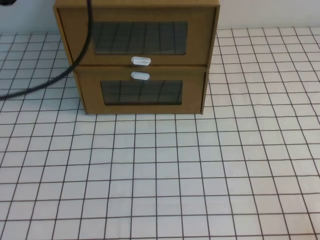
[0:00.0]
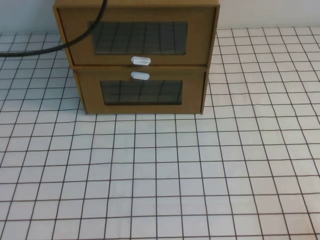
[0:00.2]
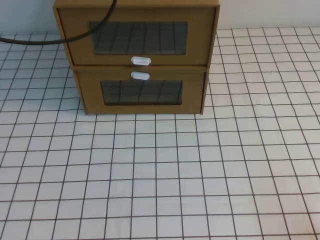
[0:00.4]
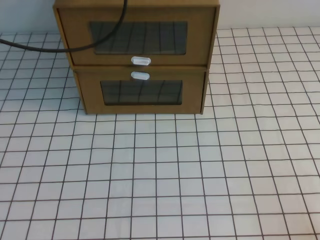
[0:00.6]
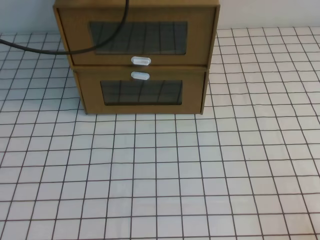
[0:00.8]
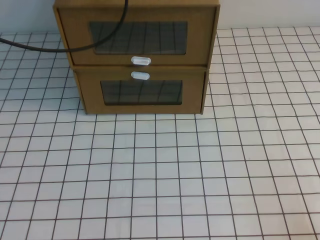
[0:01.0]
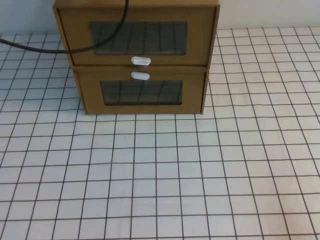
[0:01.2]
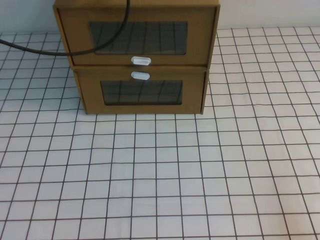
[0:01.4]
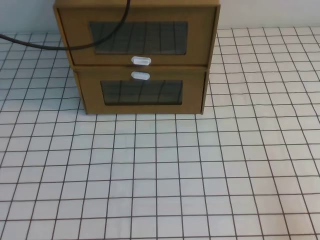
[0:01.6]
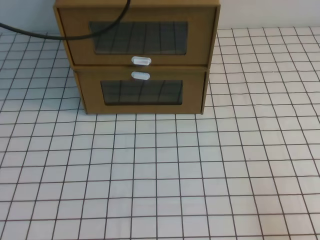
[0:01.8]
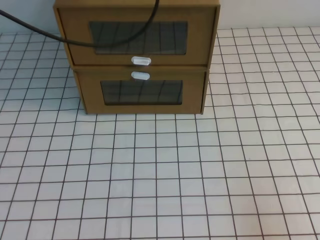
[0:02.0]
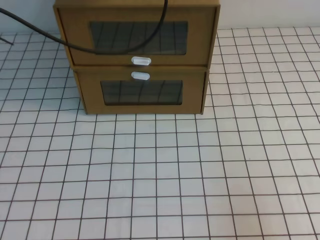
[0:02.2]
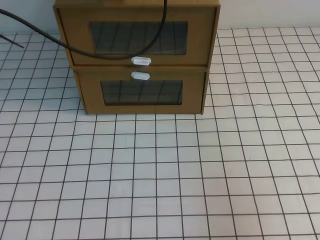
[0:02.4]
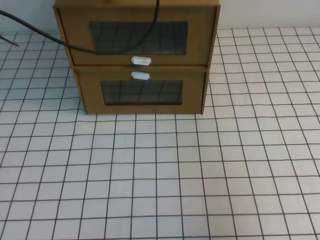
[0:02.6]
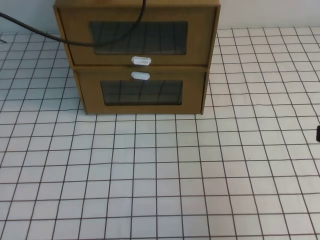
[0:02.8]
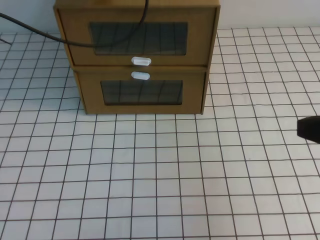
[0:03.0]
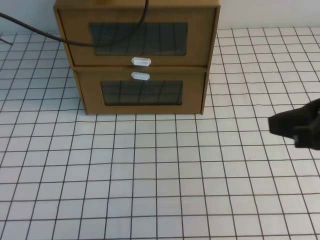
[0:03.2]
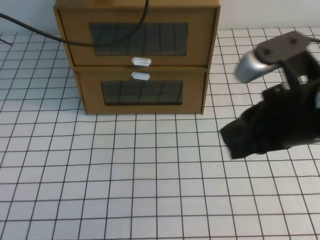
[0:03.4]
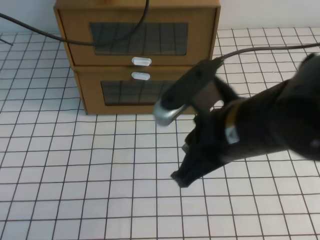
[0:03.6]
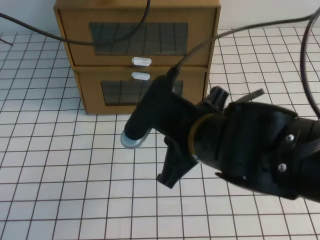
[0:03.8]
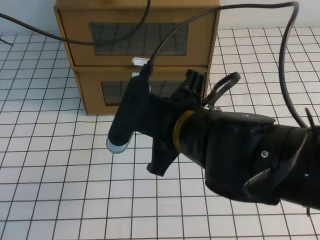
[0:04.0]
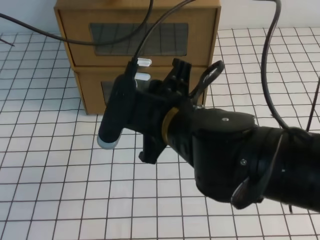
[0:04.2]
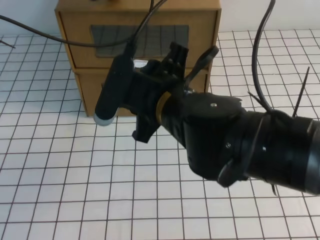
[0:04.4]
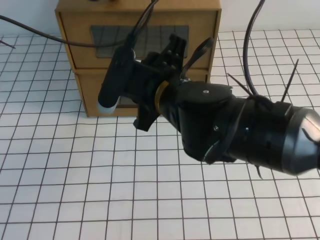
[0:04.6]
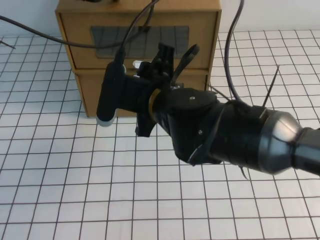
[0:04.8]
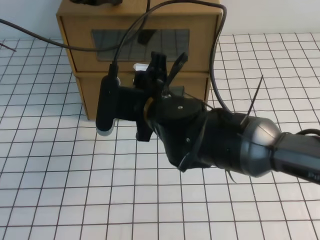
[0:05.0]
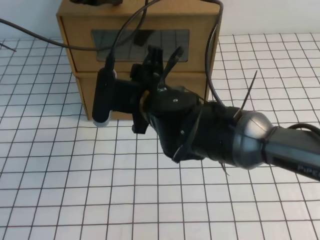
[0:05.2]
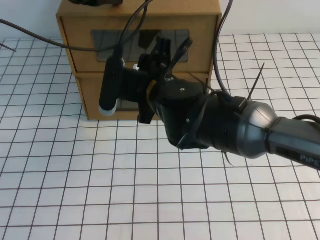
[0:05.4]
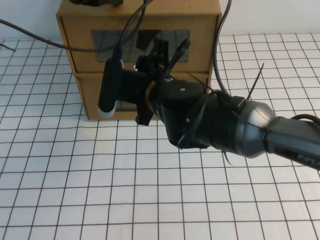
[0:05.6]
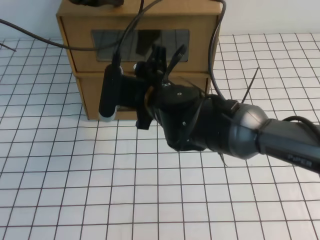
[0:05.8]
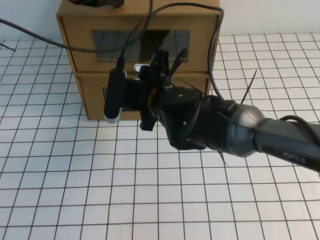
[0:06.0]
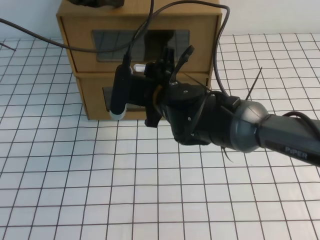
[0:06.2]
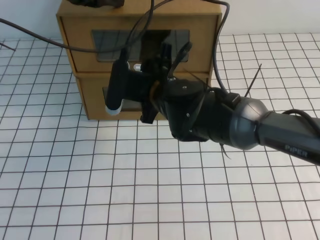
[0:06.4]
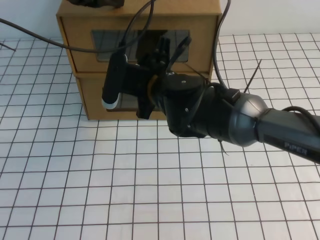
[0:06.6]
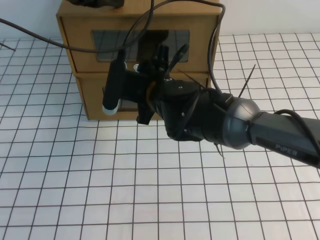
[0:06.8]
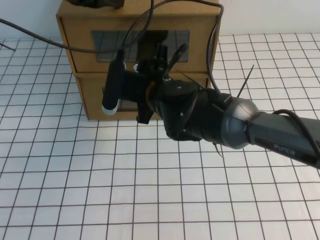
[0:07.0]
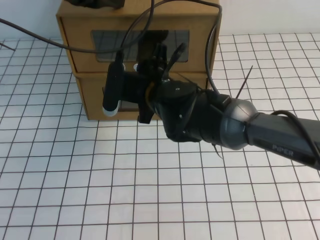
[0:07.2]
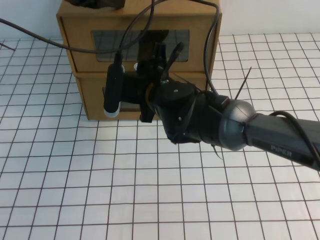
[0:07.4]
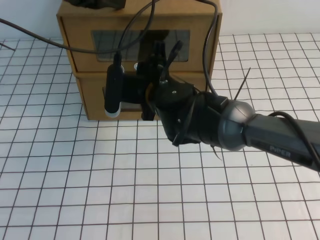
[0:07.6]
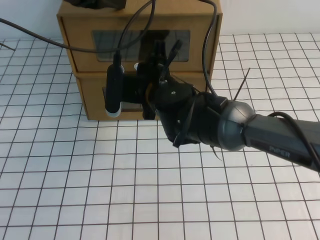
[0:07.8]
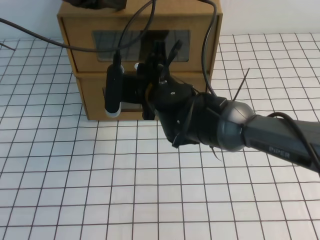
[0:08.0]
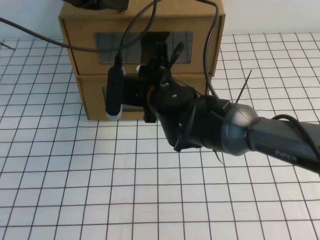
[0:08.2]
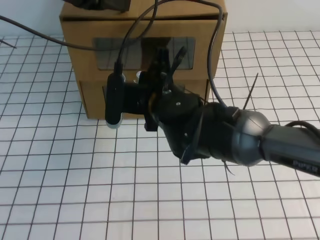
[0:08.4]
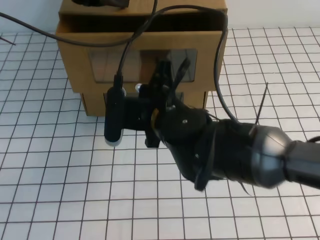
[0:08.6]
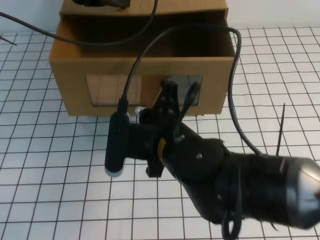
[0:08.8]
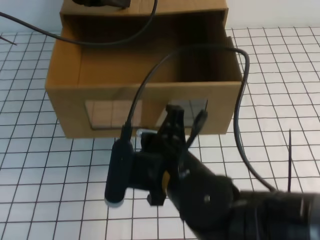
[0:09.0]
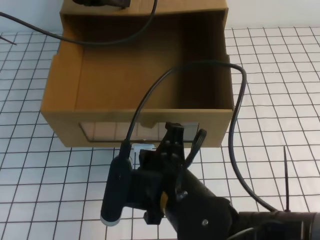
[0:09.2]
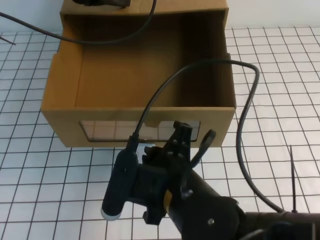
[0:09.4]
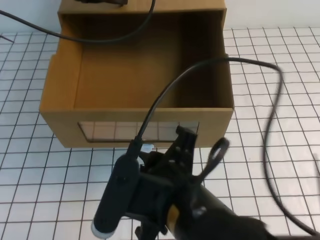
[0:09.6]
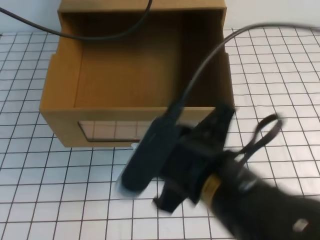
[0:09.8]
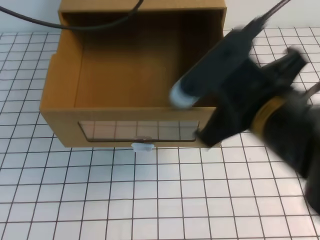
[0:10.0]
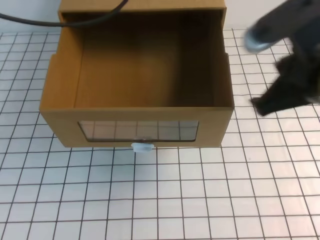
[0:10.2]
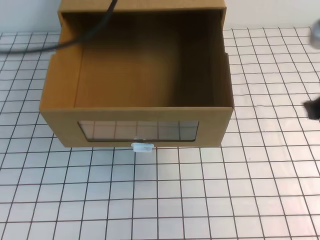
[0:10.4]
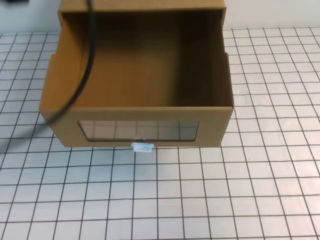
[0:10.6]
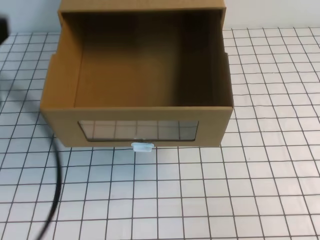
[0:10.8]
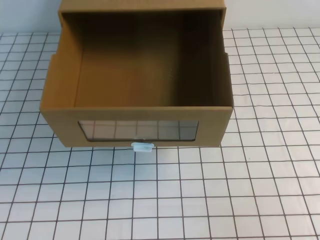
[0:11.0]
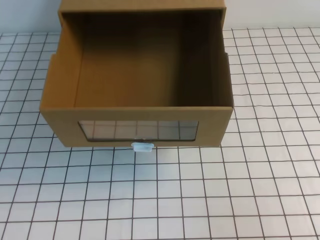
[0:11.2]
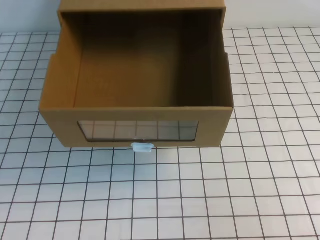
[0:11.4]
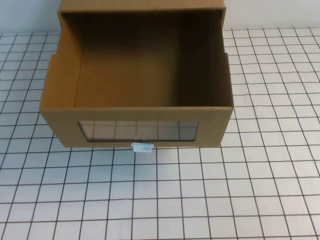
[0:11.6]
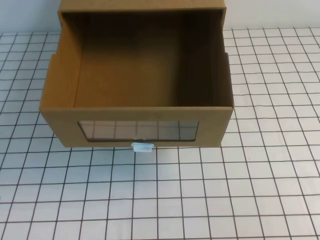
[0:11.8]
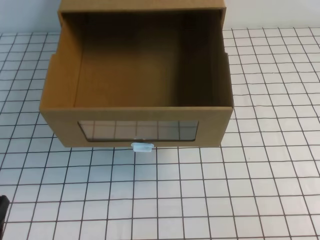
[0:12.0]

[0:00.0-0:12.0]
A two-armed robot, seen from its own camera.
Task of the whole recording: open the shoebox on the white tablecloth.
0:00.0 to 0:01.6: The left gripper is displaced forward by approximately 15 cm.
0:01.6 to 0:03.0: The right gripper is displaced upward, forward and to the left by roughly 20 cm.
0:03.0 to 0:04.4: The right gripper is displaced to the left by about 25 cm, and opens.
0:04.4 to 0:06.0: The right gripper is displaced forward and downward by roughly 10 cm.
0:06.0 to 0:07.6: The right gripper closes up.
0:07.6 to 0:09.0: The right gripper travels backward by about 15 cm, and closes.
0:09.0 to 0:10.4: The right gripper travels to the right and upward by approximately 25 cm. The left gripper moves backward and upward, about 20 cm.
0:10.4 to 0:12.0: The left gripper goes about 40 cm downward and backward, while the right gripper moves backward, downward and to the right, about 20 cm.

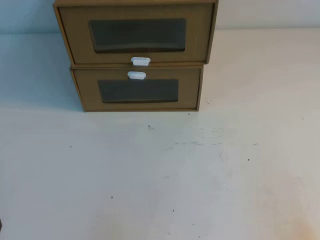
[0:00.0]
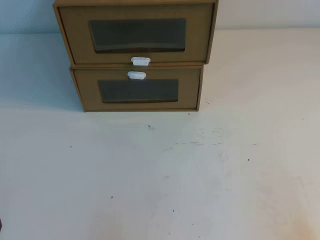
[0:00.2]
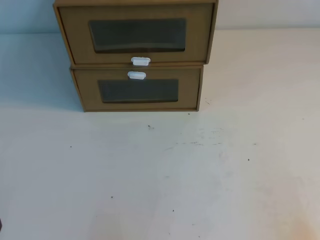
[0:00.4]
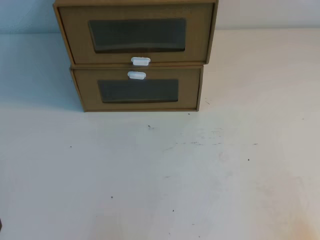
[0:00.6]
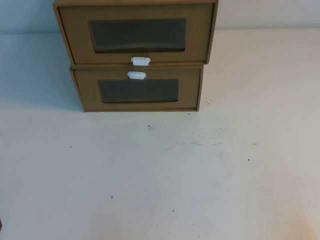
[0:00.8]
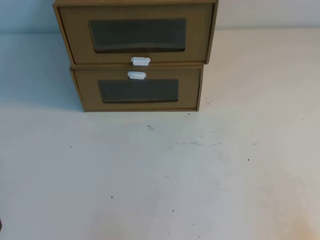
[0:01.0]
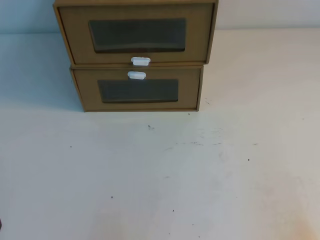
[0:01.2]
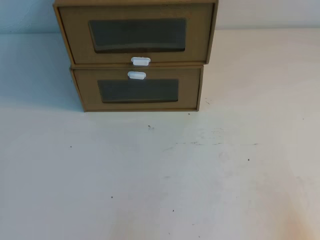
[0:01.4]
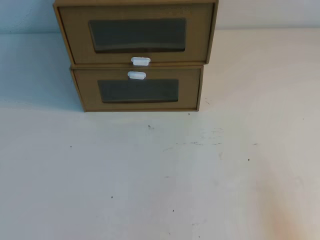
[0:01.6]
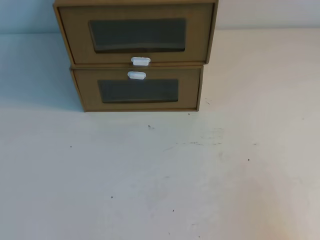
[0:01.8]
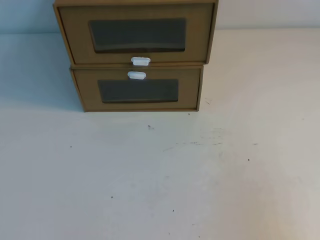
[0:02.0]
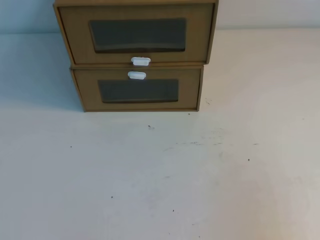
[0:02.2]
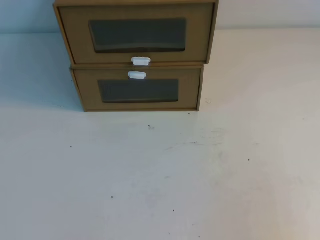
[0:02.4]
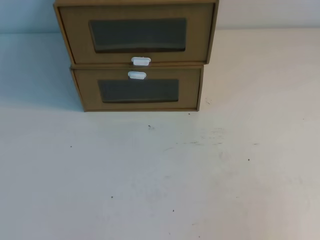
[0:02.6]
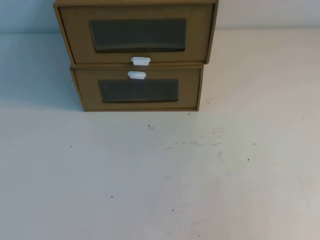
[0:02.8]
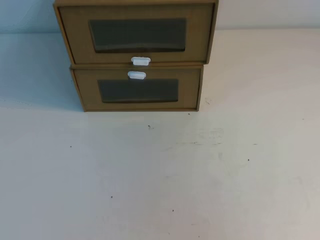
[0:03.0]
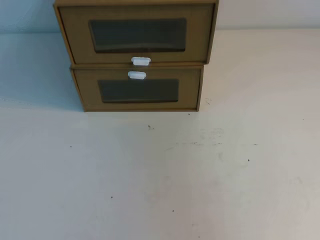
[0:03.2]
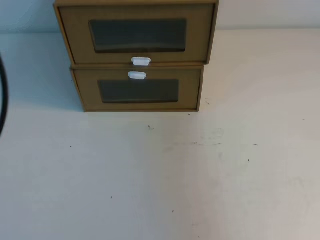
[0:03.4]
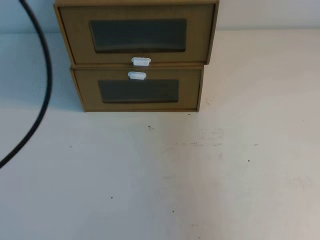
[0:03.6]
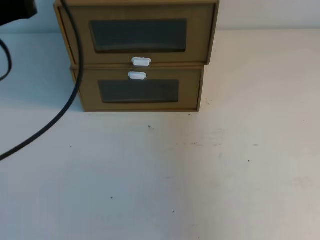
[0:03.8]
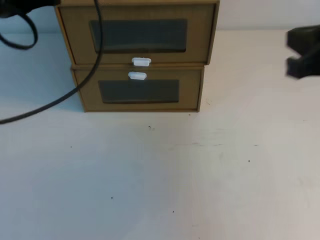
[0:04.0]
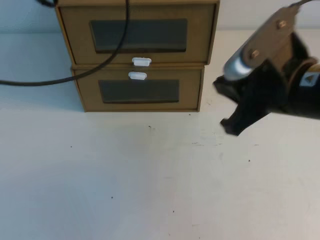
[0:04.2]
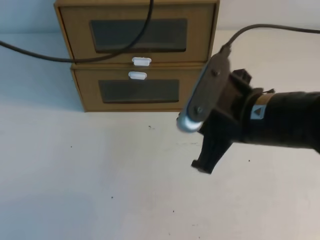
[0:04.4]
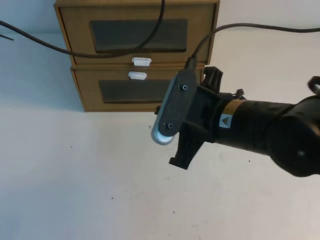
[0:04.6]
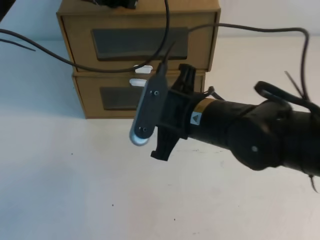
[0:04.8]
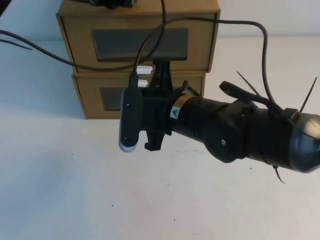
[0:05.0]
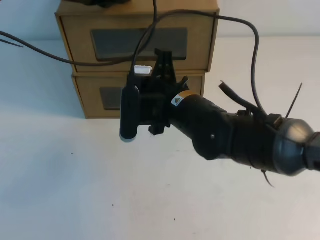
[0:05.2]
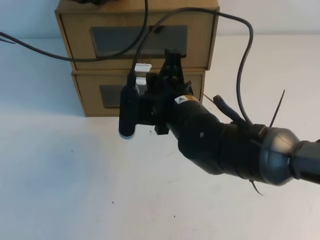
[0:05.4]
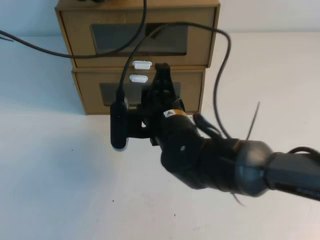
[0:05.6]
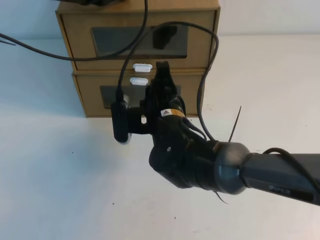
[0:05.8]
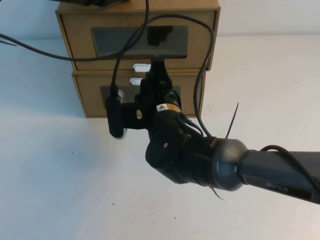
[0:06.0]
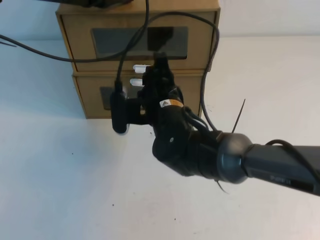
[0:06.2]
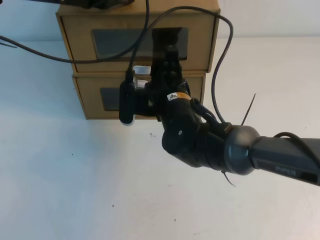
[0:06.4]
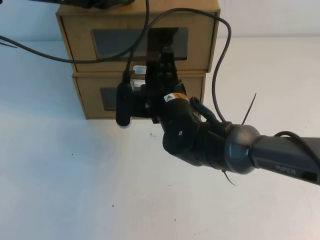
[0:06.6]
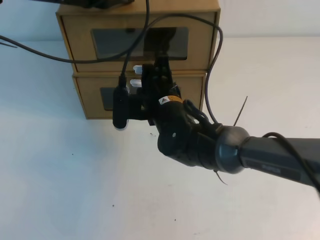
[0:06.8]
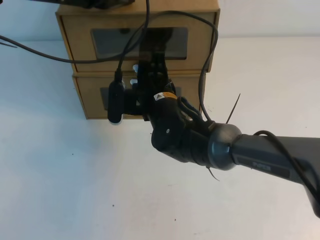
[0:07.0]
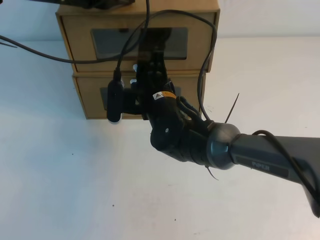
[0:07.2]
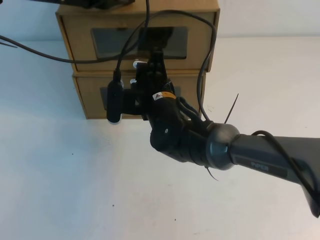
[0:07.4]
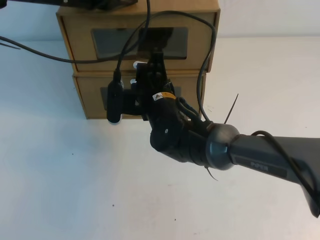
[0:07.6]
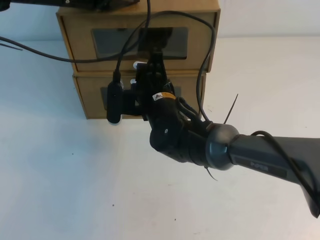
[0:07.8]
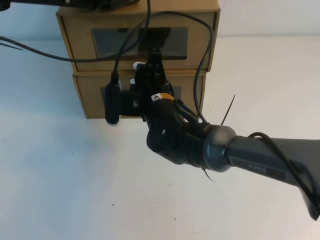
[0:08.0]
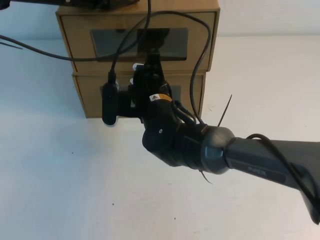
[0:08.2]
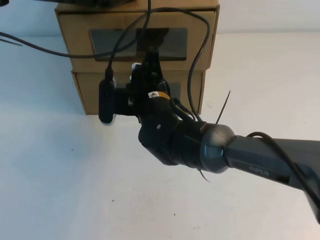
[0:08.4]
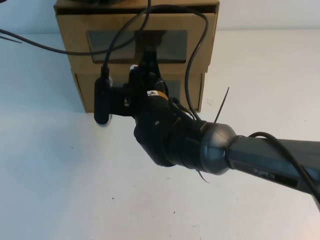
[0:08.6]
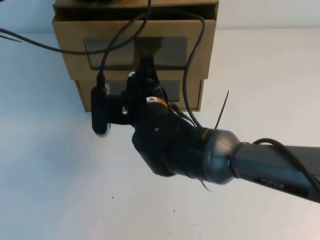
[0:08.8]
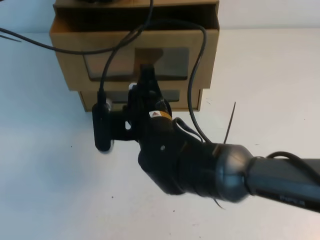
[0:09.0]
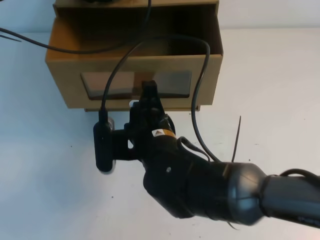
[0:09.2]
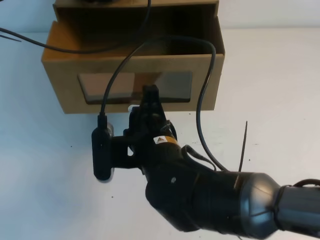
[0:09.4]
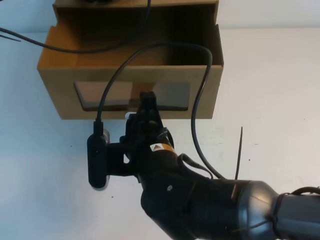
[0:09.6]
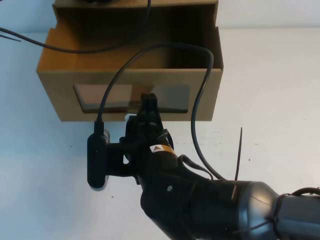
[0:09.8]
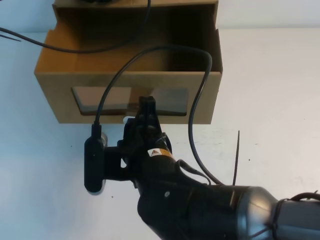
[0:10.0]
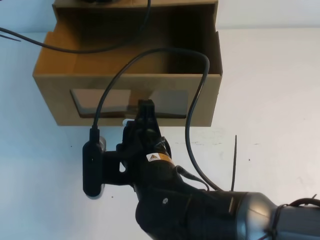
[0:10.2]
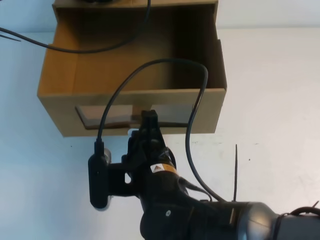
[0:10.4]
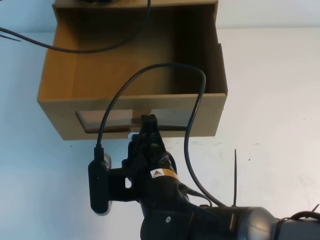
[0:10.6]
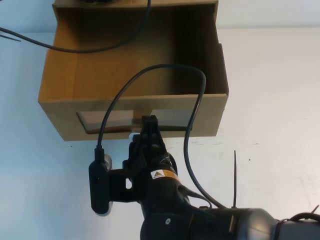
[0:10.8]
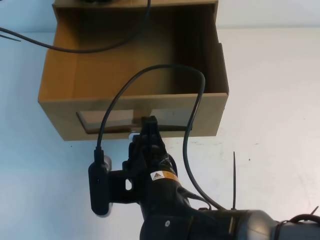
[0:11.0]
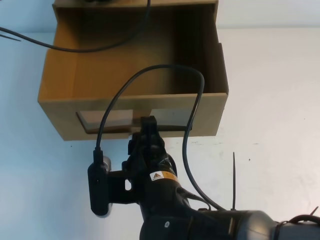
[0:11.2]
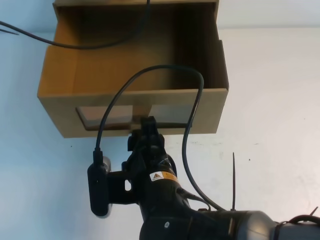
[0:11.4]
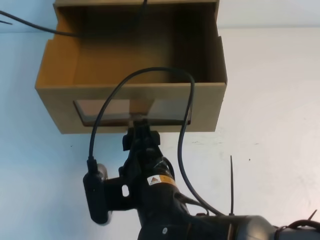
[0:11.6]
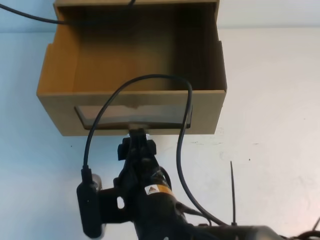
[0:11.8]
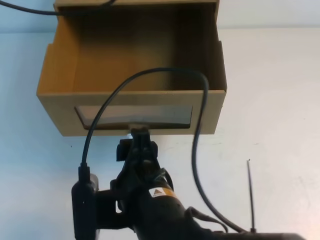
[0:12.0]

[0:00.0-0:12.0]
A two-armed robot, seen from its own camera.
Task of the whole recording: open the shoebox on the table.
0:01.6 to 0:03.0: The right gripper heads upward, covering approximately 25 cm.
0:03.0 to 0:04.4: The left gripper goes approximately 35 cm forward, while the right gripper moves forward, to the left and downward, about 35 cm.
0:04.4 to 0:06.0: The left gripper is displaced forward and downward by approximately 10 cm; the right gripper moves to the left, forward and downward, approximately 15 cm.
0:06.0 to 0:07.6: The right gripper opens, then closes again.
0:07.6 to 0:09.0: The right gripper travels backward by approximately 10 cm.
0:09.0 to 0:10.4: The right gripper goes approximately 10 cm backward.
0:10.4 to 0:12.0: The right gripper shifts by roughly 5 cm, and opens its fingers. Meanwhile the left gripper shifts roughly 10 cm upward and backward.
